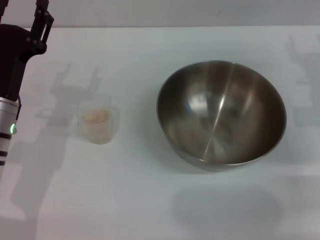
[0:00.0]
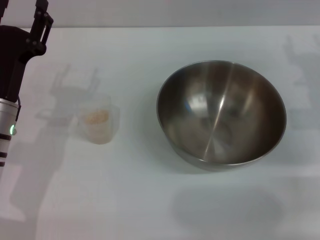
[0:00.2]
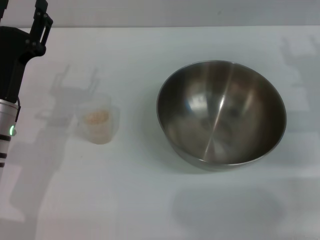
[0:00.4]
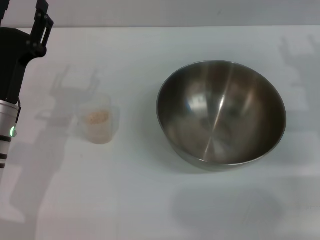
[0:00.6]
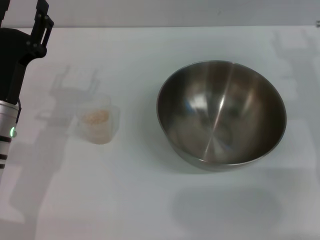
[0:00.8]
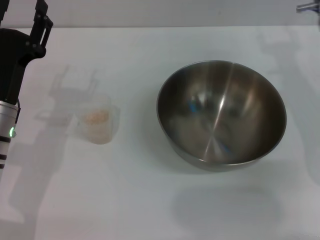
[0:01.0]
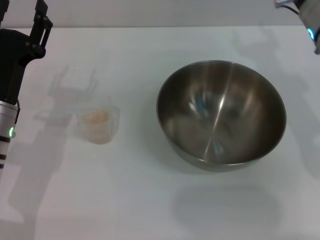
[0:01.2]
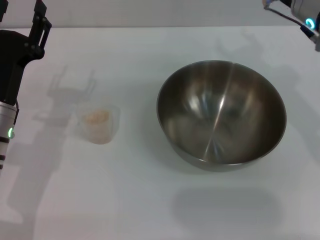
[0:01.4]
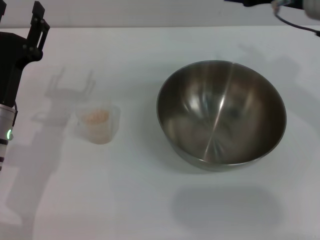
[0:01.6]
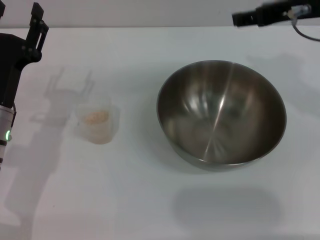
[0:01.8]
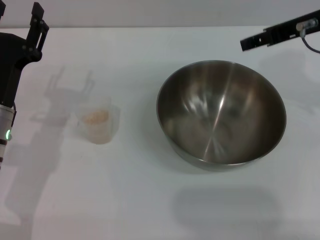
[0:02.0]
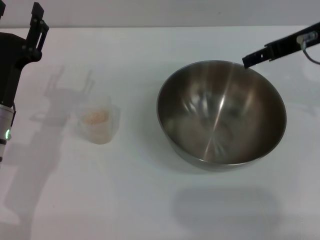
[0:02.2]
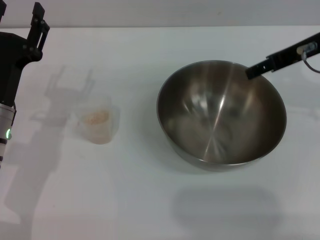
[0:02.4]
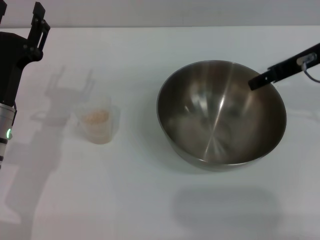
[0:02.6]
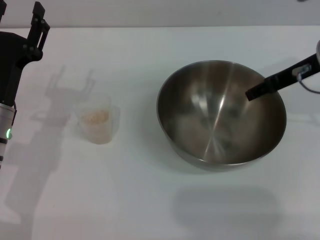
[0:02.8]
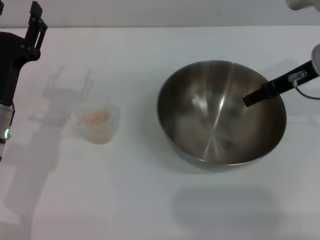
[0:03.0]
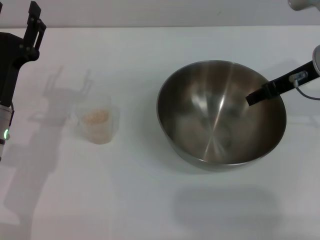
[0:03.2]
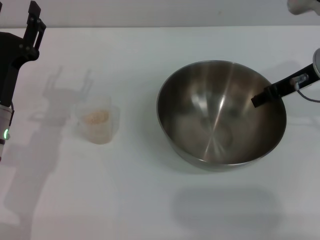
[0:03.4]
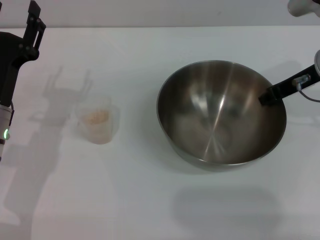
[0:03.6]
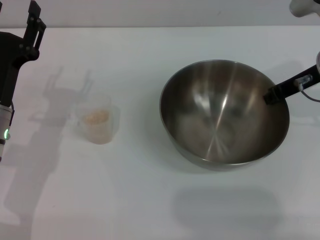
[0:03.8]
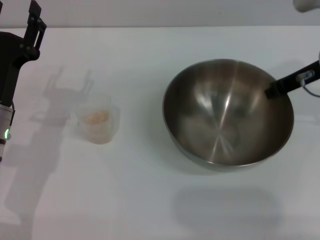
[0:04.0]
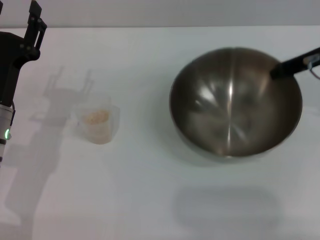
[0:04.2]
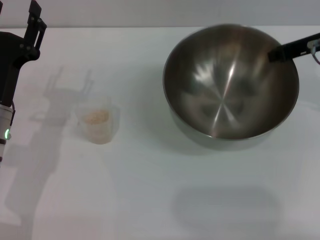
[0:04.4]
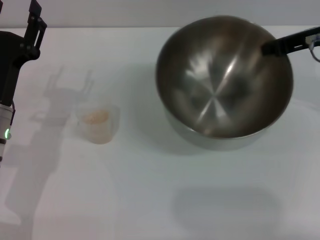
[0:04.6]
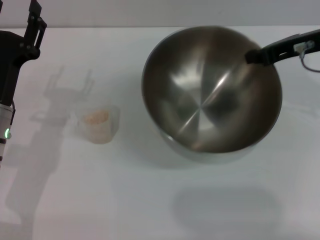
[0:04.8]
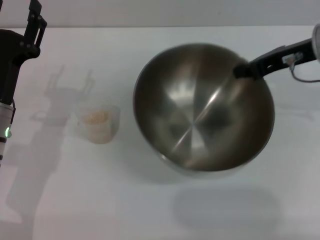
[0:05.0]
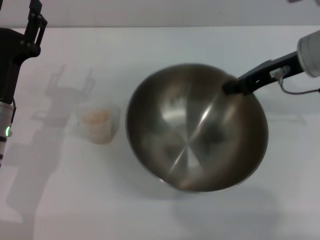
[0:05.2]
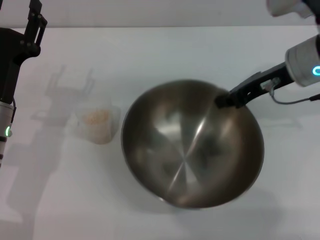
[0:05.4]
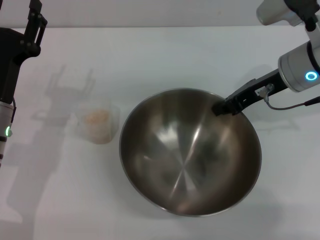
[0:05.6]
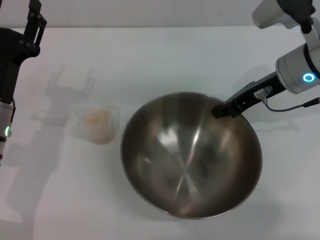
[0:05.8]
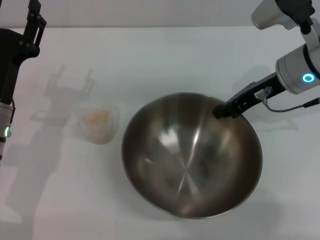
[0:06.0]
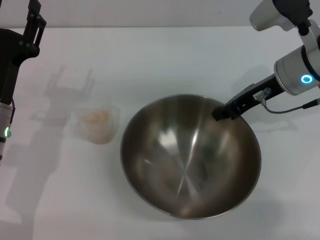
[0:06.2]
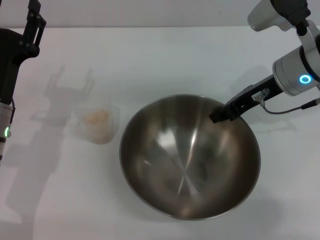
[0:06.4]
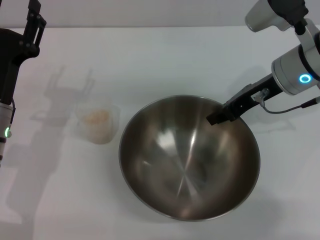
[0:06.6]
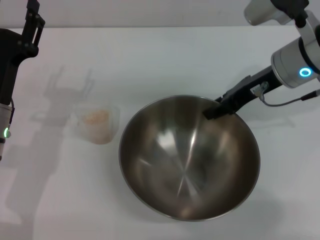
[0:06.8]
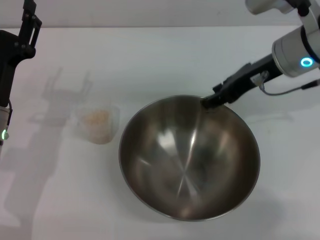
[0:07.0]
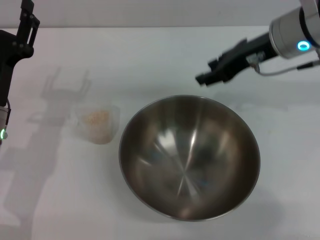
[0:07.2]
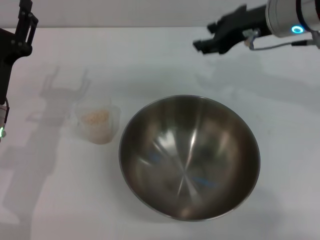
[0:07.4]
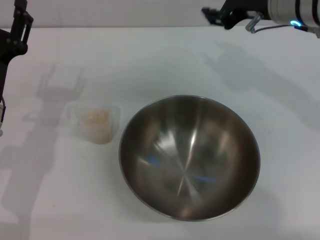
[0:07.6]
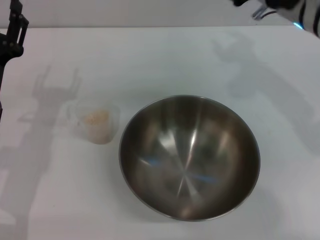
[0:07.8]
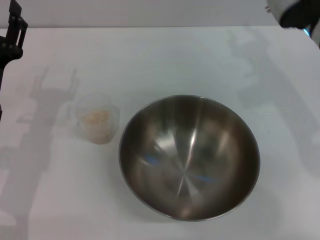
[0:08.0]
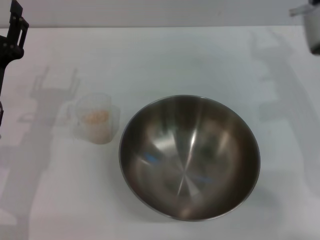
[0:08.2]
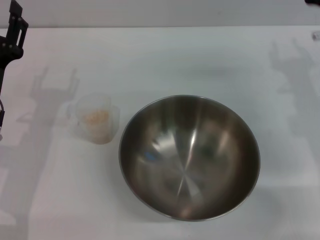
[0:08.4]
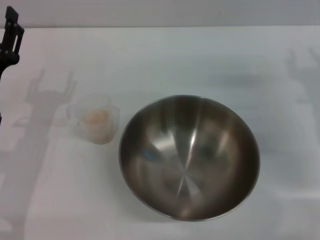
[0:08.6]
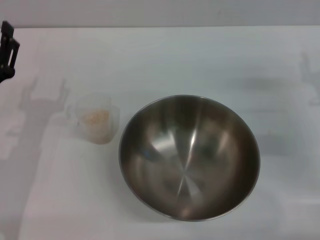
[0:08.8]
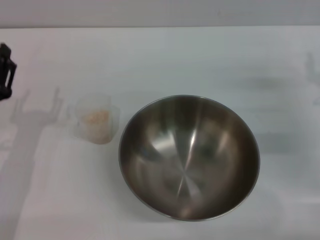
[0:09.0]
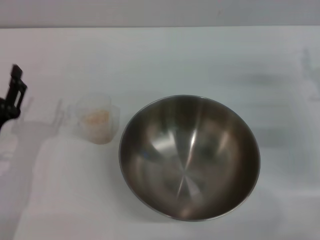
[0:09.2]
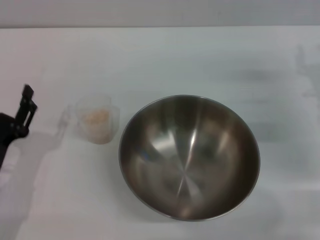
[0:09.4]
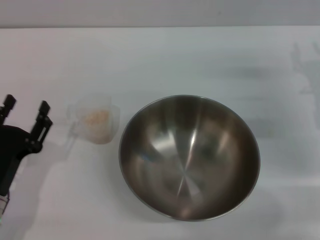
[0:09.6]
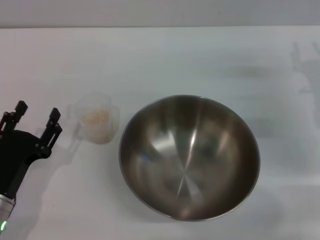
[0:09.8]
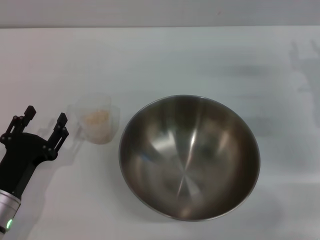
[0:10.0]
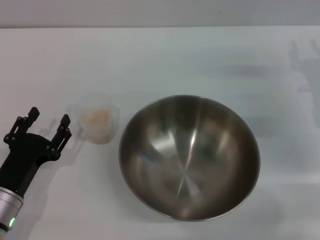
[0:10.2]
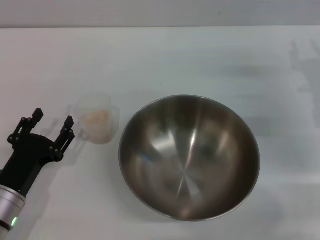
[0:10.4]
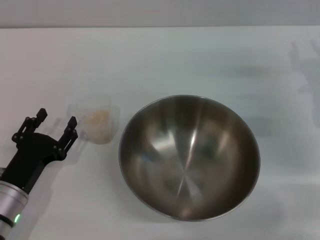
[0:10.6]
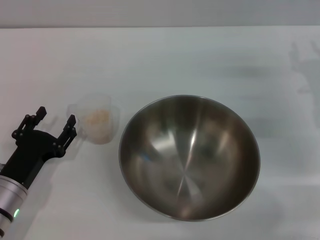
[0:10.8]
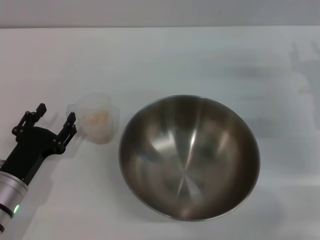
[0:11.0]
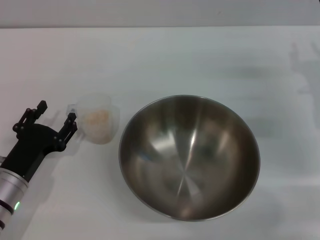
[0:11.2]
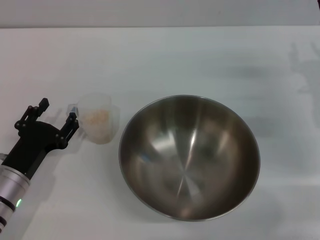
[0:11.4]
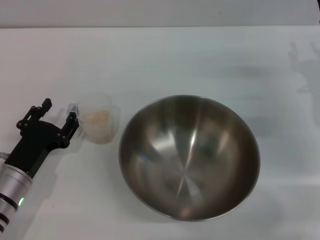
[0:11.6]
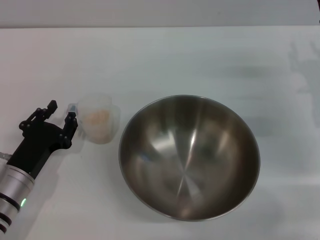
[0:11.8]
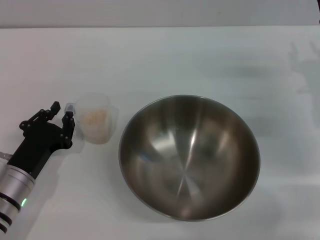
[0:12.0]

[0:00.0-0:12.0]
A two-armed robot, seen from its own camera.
Task of the whole recording: Place the bowl in the middle of the table with one hand and pour the rice from the grain cup into it with the other hand.
Step, 0:00.0 to 0:04.2: Pick up the bowl with the right gripper.
Step, 0:04.4 to 0:06.8: Place the bowl in the center of view with the right gripper.
0:00.0 to 0:01.6: The right gripper moves upward and to the left, approximately 15 cm.
0:01.6 to 0:03.0: The right gripper is displaced downward by some 5 cm.
0:03.0 to 0:04.4: The right gripper closes up.
0:04.4 to 0:06.0: The right gripper heads to the left, covering roughly 5 cm.
0:06.0 to 0:07.6: The right gripper moves upward, about 5 cm, and opens up.
0:07.6 to 0:09.0: The left gripper ends up some 5 cm from where it was, while the right gripper travels downward, to the right and backward by roughly 20 cm.
0:09.0 to 0:10.4: The left gripper ends up about 5 cm from where it was.
0:10.4 to 0:12.0: The left gripper closes its fingers.

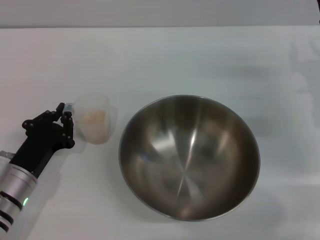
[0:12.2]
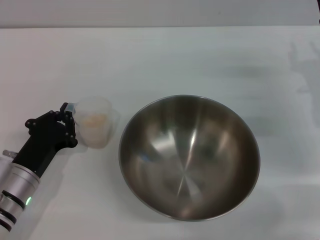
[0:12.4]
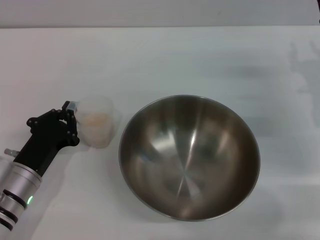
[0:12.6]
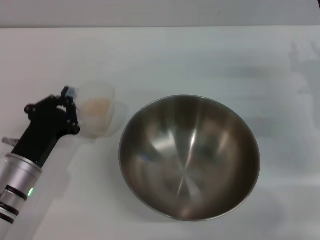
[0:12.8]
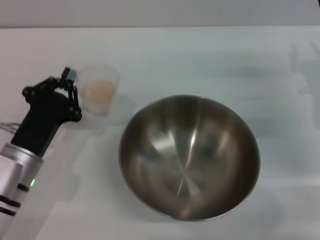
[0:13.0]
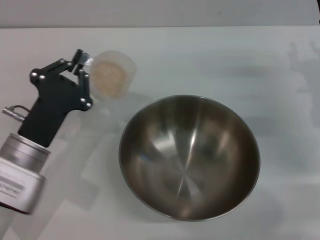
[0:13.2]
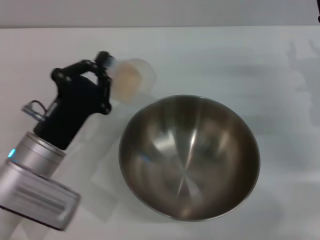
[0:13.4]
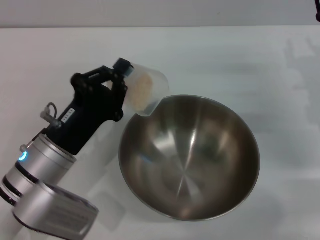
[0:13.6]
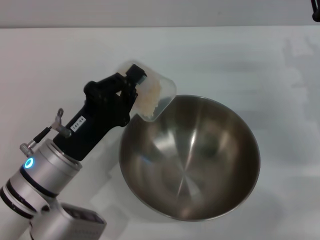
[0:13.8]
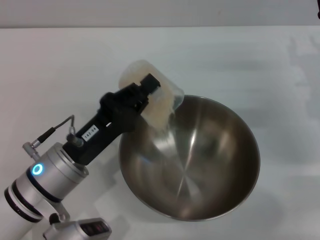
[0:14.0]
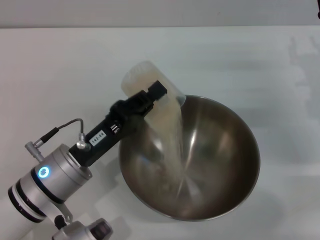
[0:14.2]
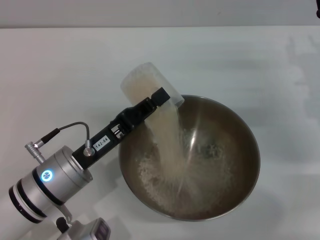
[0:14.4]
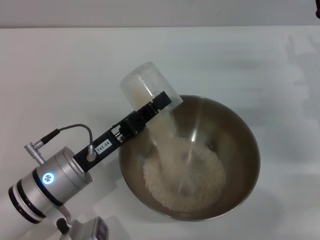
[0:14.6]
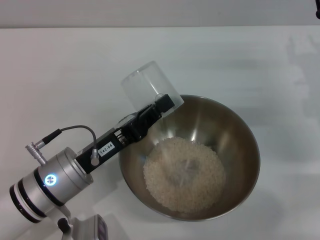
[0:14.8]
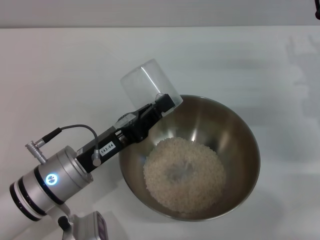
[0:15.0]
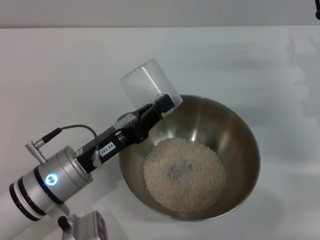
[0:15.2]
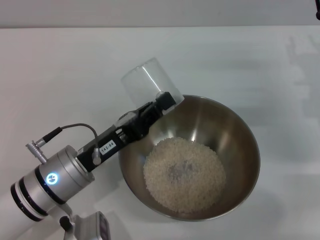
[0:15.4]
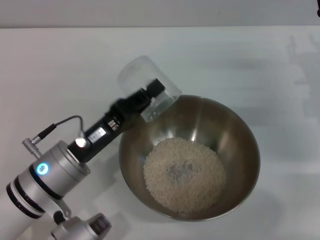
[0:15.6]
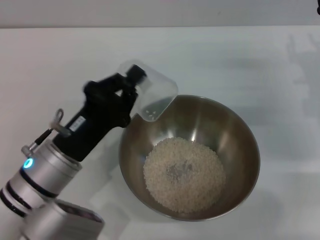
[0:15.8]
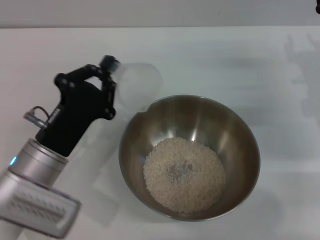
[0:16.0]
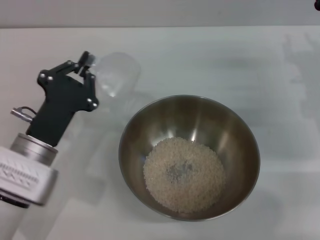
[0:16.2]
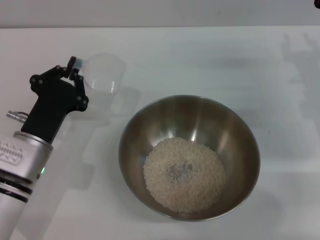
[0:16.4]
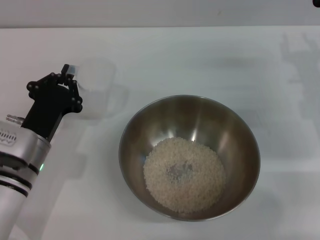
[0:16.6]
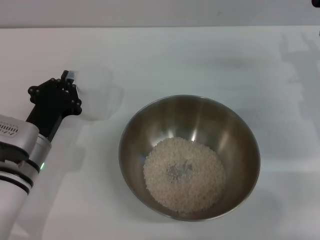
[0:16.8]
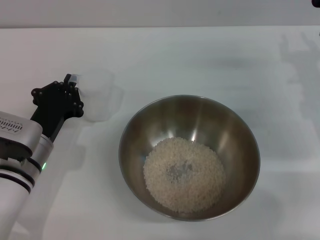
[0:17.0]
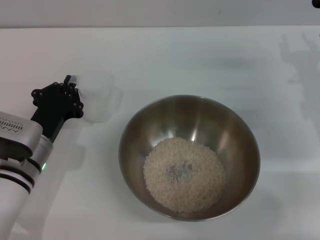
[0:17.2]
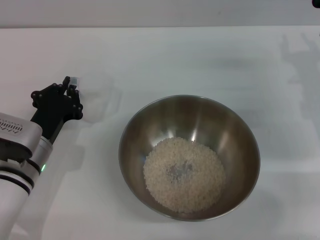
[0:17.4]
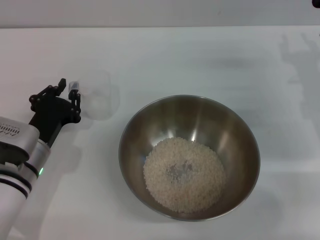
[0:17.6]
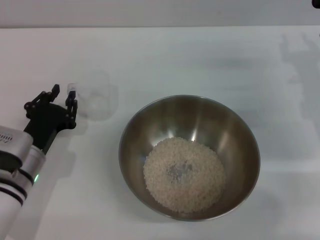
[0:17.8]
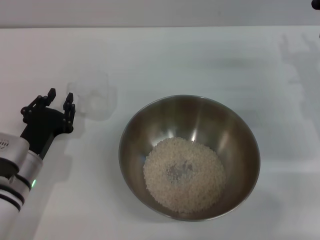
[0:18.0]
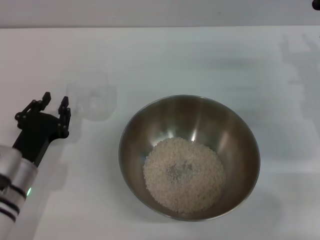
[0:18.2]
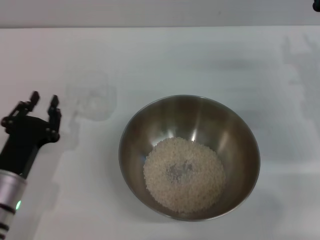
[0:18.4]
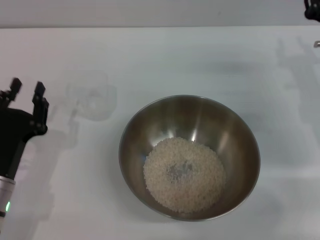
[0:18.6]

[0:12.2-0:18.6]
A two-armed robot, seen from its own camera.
Task of the whole recording: Place the bowl in the middle of the table with one hand and pour the rice from the grain cup into it with the other hand.
Step, 0:13.0 to 0:15.4: Pour the rice from the cup into the bowl with the left gripper.
Step, 0:15.6 to 0:18.2: Place the cup on the table with the left gripper.
0:12.2 to 0:13.8: The left gripper moves to the right and upward, some 10 cm.
0:15.4 to 0:17.0: The left gripper shifts by some 5 cm.
0:17.0 to 0:18.6: The left gripper travels backward by about 5 cm, and opens its fingers.
